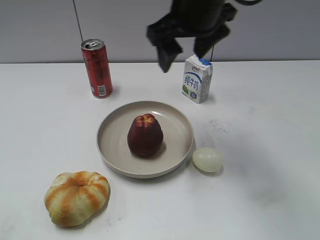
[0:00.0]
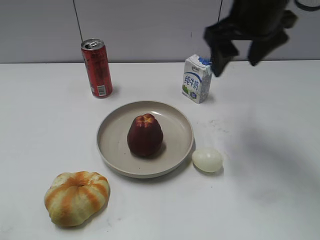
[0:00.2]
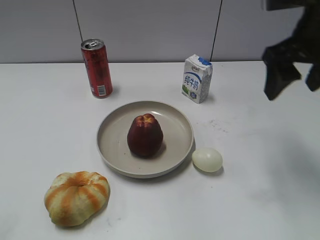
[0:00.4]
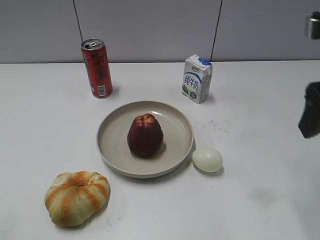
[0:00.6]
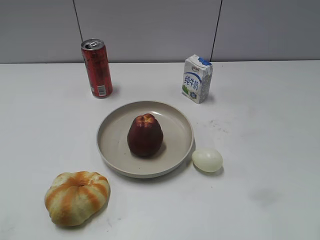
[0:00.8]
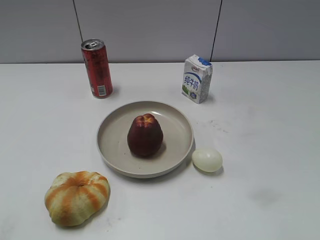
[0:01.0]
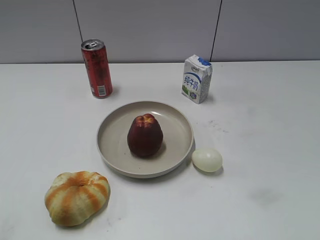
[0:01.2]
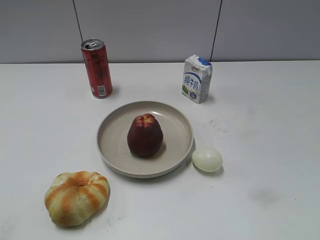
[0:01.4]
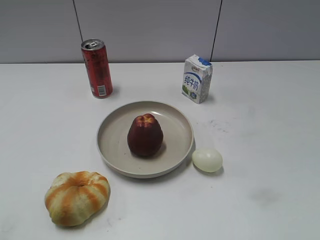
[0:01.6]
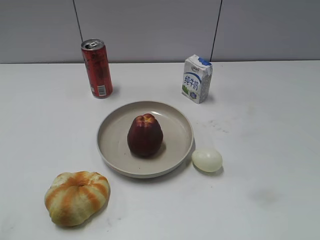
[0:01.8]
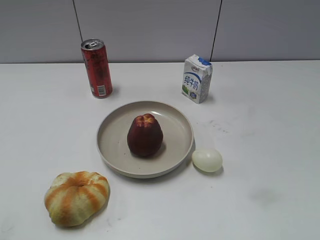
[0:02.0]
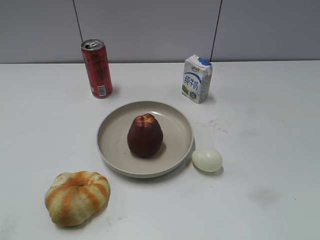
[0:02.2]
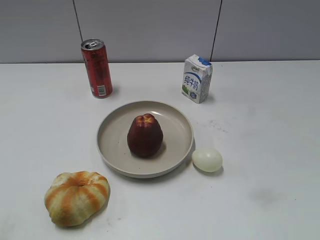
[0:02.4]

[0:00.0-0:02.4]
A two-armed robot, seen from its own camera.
0:00.0 to 0:01.2: The right gripper goes some 35 cm backward and to the right, and closes its fingers.
